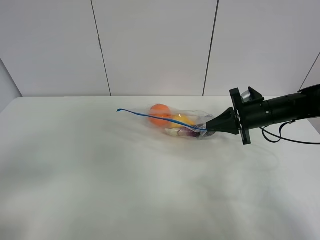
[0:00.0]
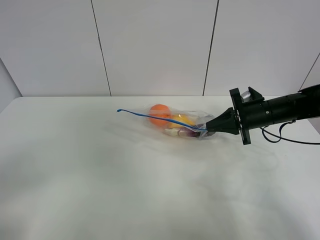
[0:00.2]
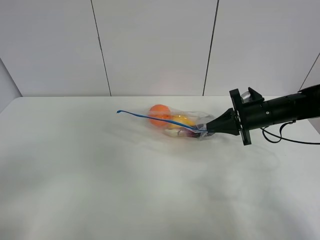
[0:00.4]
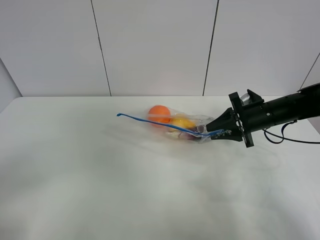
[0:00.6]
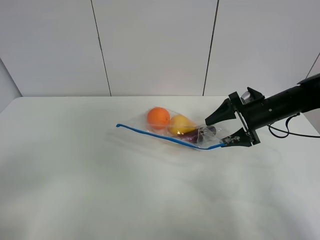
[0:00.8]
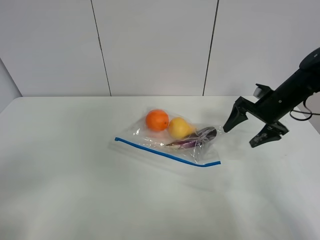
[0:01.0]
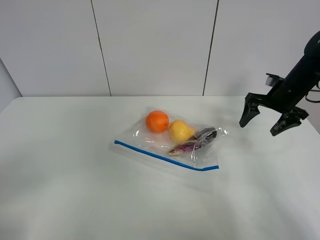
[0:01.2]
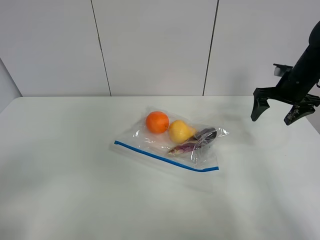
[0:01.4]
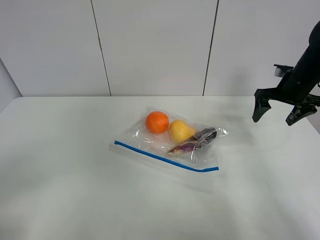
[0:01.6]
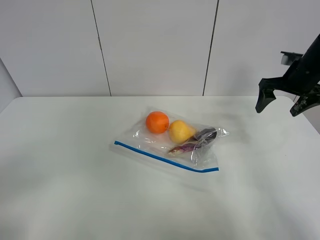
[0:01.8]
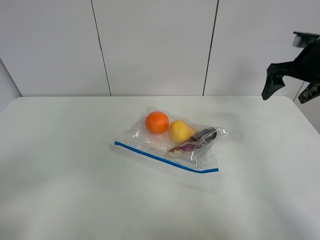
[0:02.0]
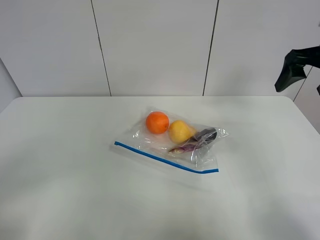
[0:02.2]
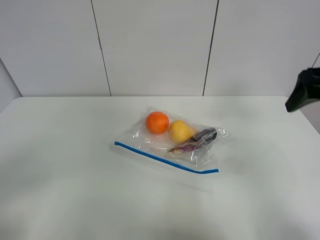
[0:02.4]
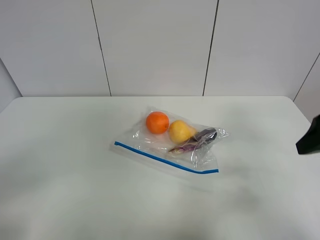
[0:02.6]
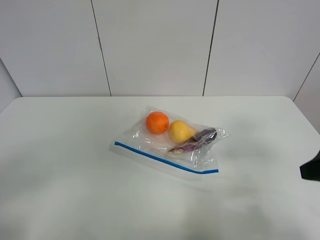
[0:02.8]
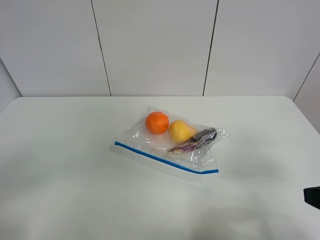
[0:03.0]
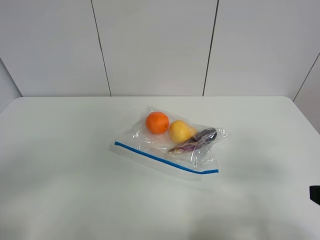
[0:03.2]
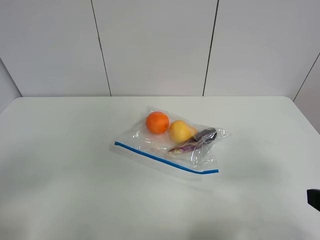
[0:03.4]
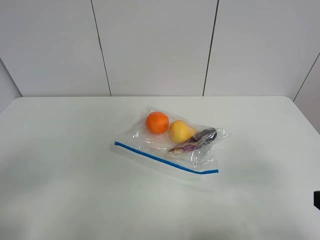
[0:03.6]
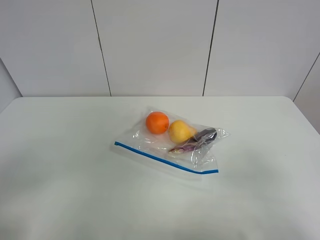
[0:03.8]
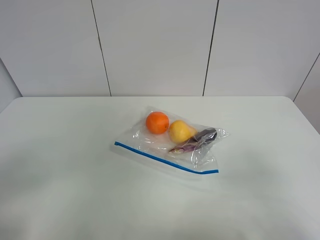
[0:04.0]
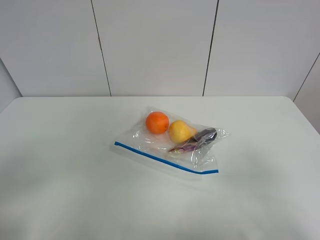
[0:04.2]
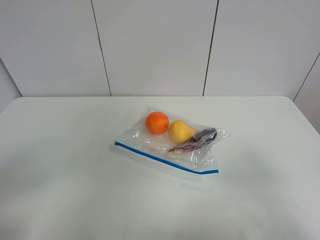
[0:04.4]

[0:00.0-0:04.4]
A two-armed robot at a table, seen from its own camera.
0.0 to 1.4 s: The right gripper heads to the right and upward, covering some 10 cm, and opens up.
1.4 to 3.0 s: The right gripper moves backward, roughly 30 cm.

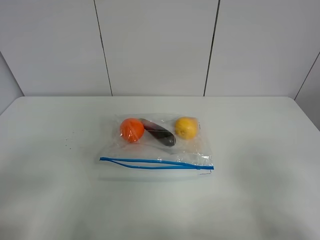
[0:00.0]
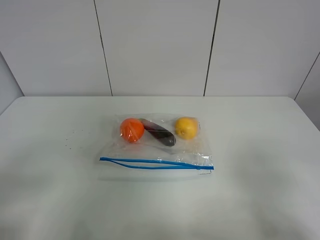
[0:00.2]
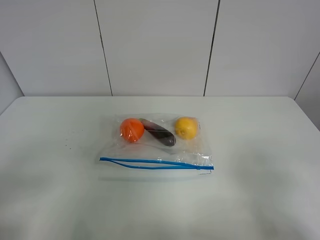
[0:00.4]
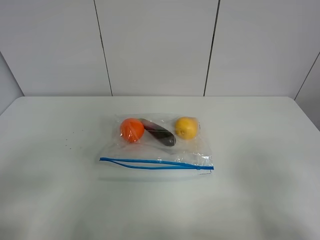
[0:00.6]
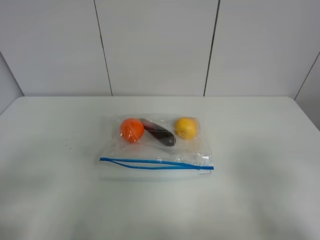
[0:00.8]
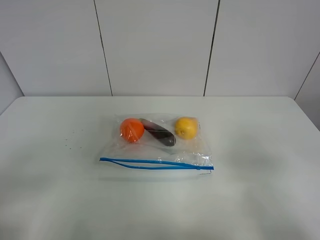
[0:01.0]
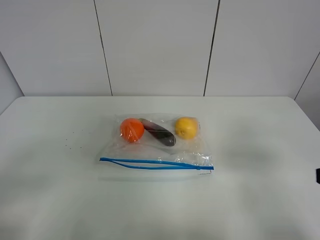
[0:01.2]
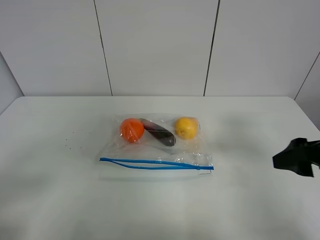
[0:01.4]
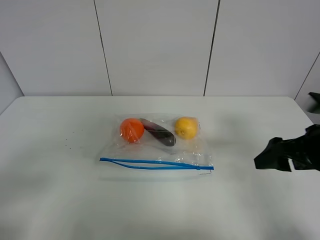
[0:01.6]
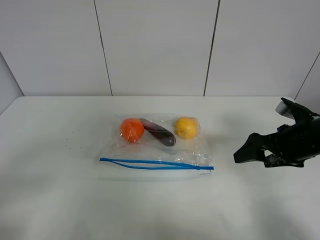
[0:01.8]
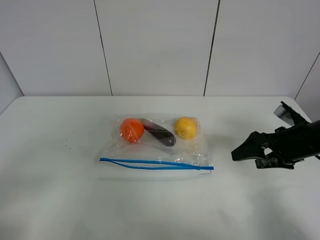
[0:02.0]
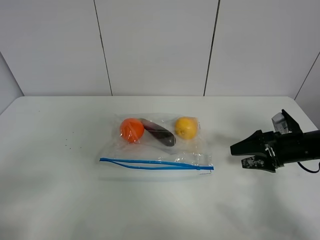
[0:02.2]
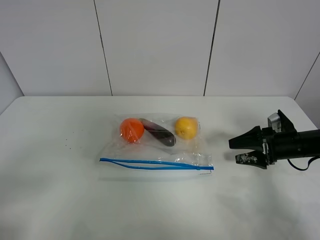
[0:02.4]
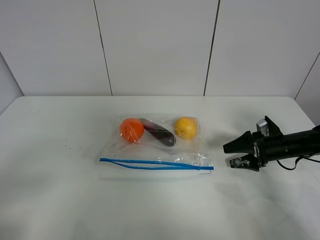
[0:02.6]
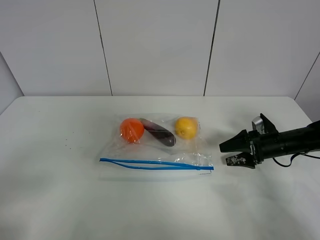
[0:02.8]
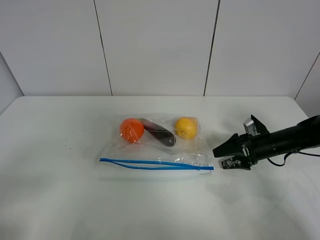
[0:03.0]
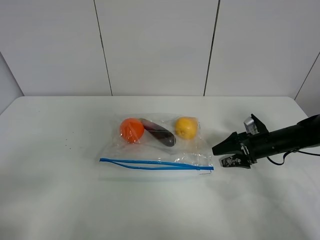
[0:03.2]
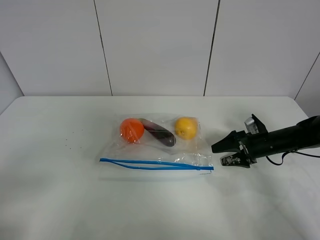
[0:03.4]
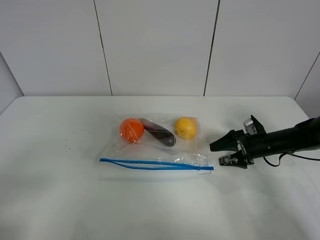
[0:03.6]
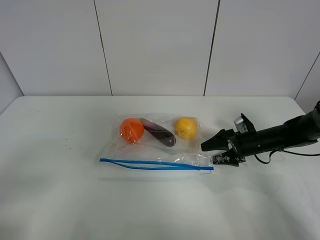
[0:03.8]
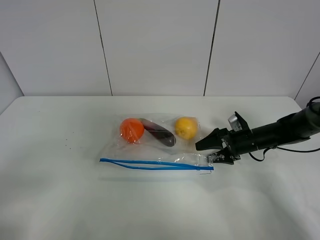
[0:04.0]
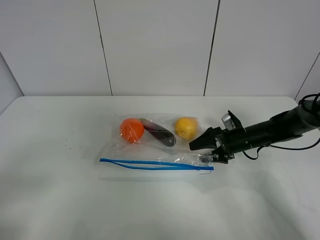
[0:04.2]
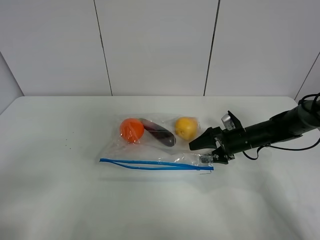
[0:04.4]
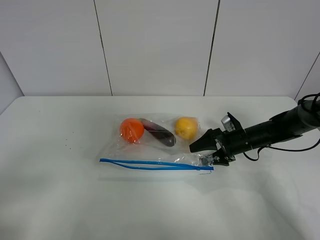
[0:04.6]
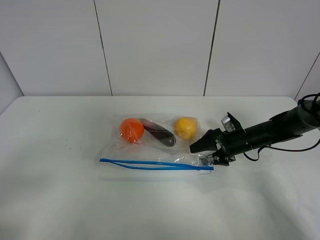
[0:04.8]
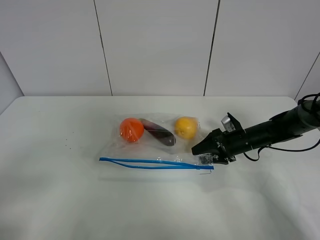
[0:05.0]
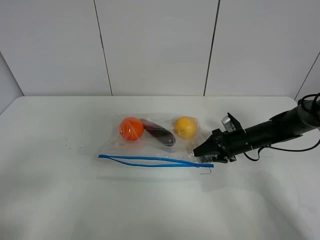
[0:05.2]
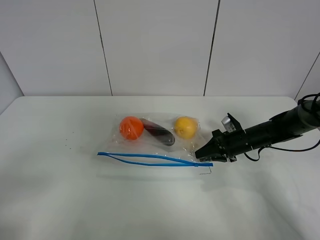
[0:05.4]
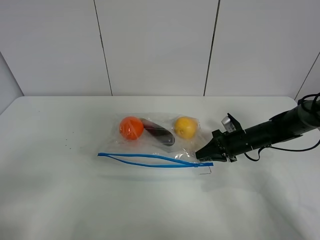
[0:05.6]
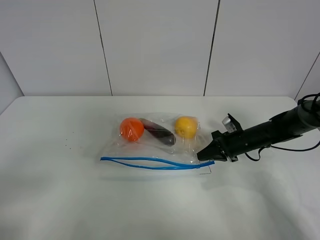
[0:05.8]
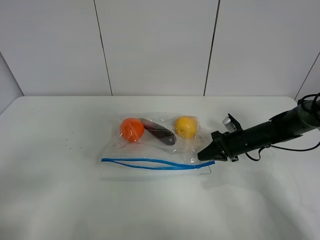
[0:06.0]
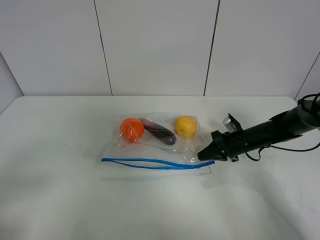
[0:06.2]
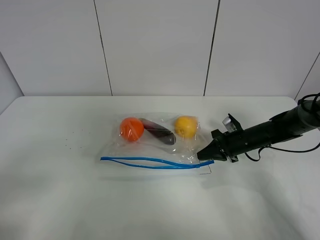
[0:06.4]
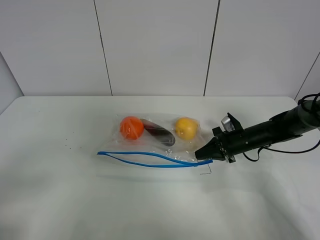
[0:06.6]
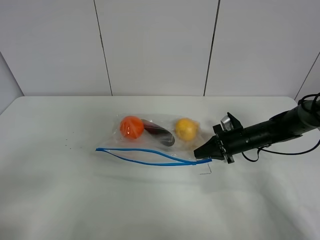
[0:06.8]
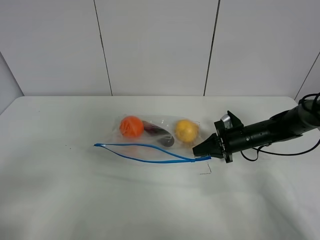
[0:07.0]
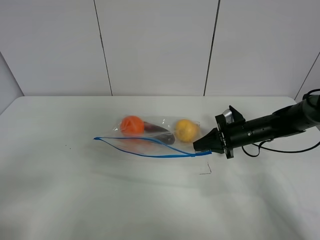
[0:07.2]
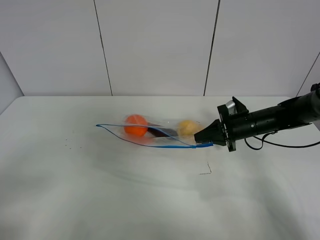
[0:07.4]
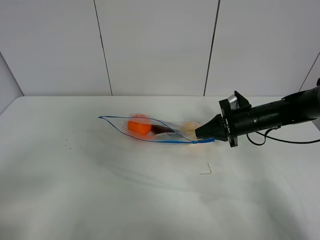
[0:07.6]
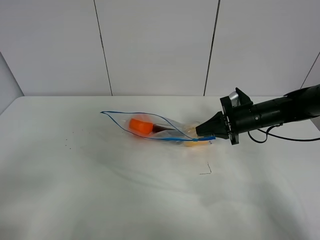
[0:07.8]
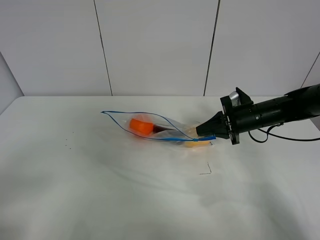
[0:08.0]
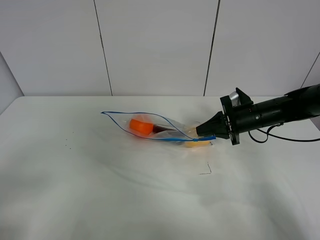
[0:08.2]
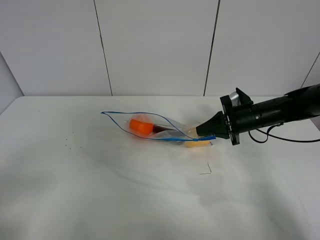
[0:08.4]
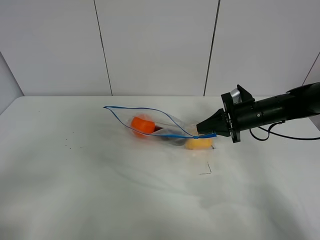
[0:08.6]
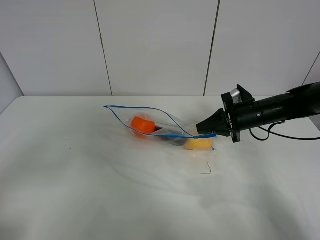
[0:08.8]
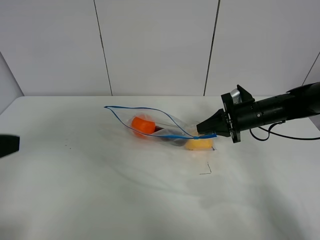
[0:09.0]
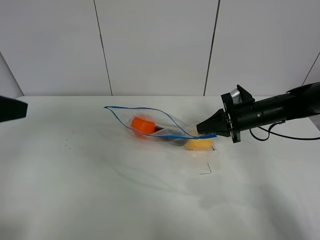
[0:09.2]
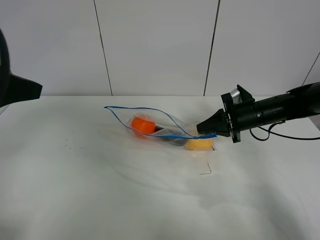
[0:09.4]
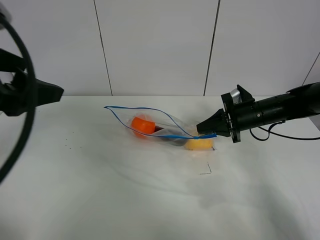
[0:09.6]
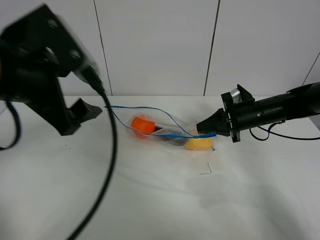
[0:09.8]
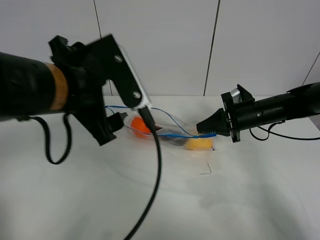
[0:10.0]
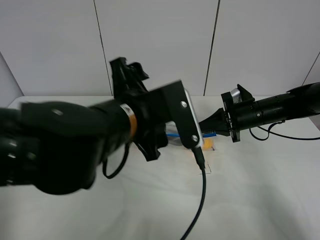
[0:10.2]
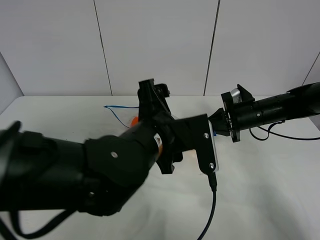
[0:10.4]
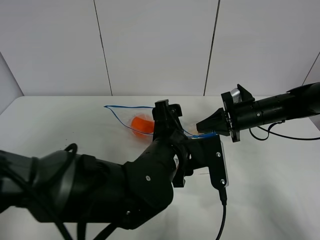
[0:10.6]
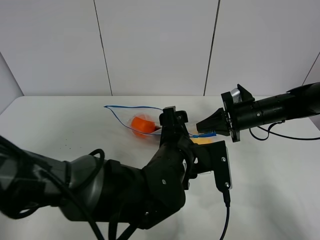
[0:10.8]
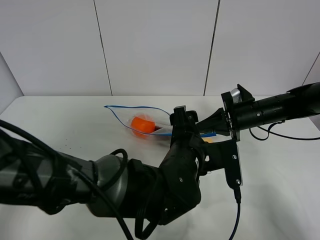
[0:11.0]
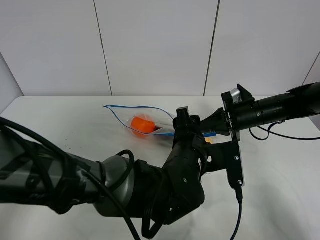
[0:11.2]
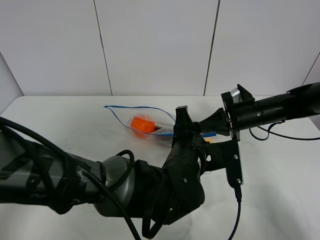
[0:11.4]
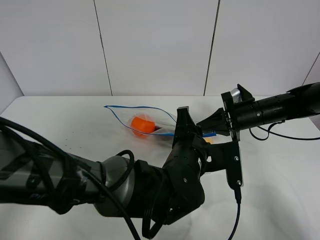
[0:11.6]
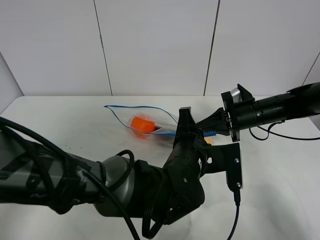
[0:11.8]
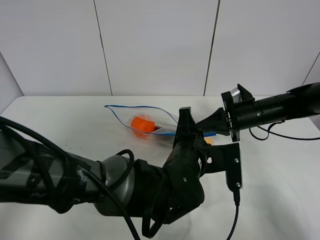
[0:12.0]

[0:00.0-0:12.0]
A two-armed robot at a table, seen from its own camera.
Step, 0.0 to 5.6 s: Grasp the fruit bag with right gripper.
Step, 5.8 to 8.4 s: Lift the fruit bag with your right gripper.
0.0 to 1.6 s: The right gripper goes about 20 cm forward.
1.6 to 3.0 s: The right gripper travels downward and forward by about 20 cm.
3.0 to 4.4 s: The right gripper moves to the left, some 5 cm.
4.4 to 6.0 s: The right gripper closes.
6.0 to 7.6 s: The right gripper heads upward, covering about 10 cm.
7.6 to 9.0 s: The left gripper shifts about 15 cm forward and upward.
9.0 to 10.4 s: The left gripper travels to the right and downward by some 30 cm.
10.4 to 12.0 s: The left gripper moves downward and to the right, some 10 cm, and closes up.

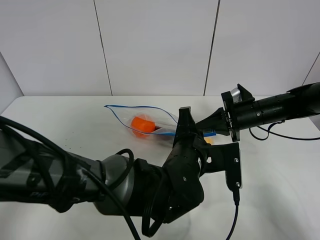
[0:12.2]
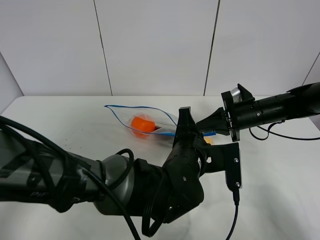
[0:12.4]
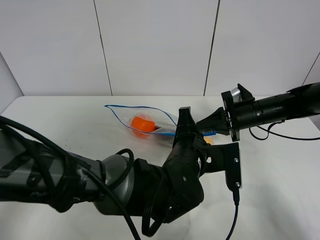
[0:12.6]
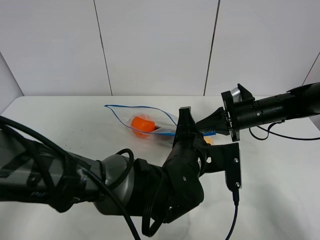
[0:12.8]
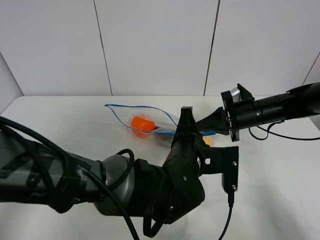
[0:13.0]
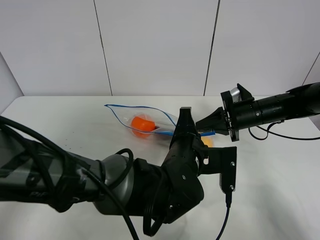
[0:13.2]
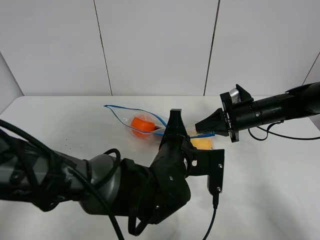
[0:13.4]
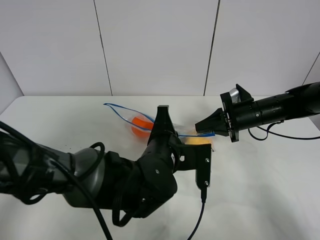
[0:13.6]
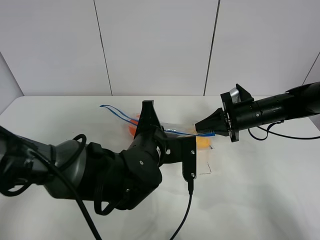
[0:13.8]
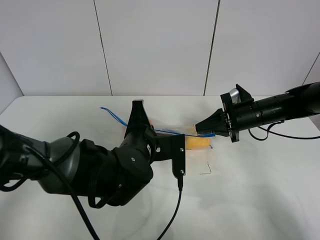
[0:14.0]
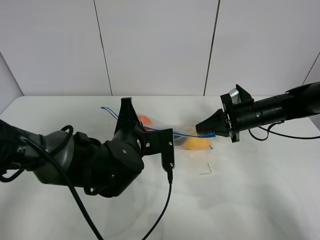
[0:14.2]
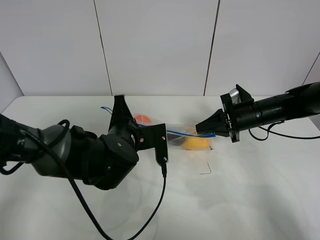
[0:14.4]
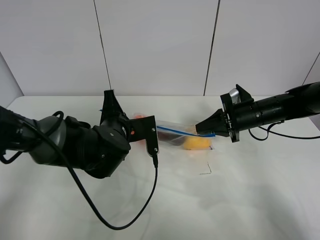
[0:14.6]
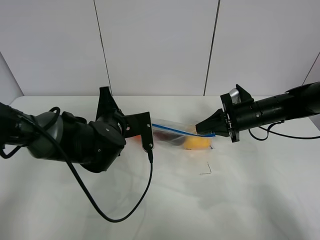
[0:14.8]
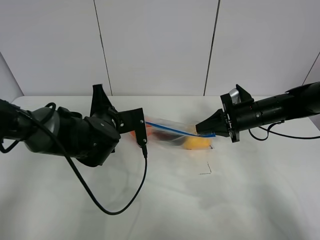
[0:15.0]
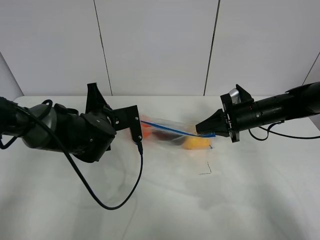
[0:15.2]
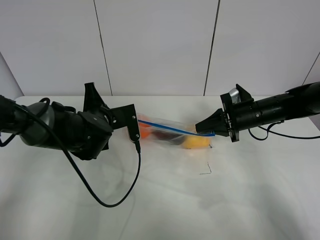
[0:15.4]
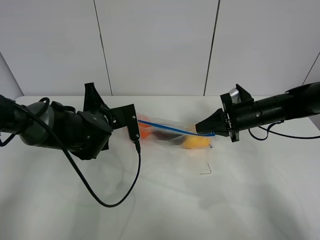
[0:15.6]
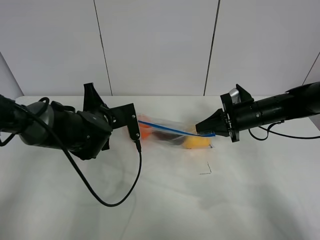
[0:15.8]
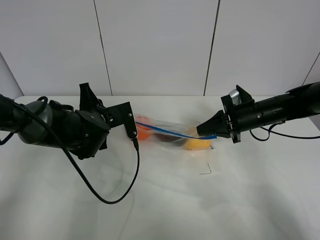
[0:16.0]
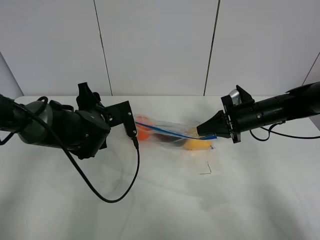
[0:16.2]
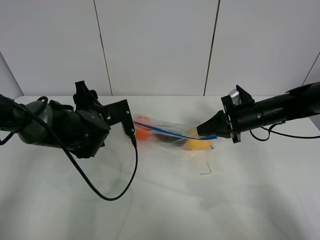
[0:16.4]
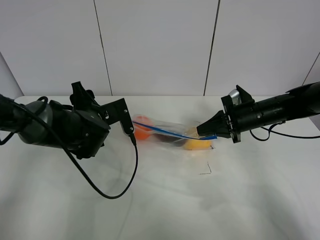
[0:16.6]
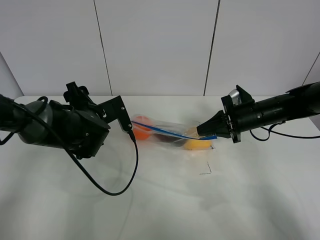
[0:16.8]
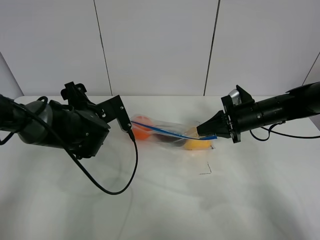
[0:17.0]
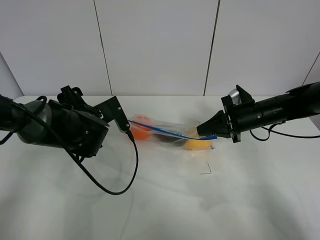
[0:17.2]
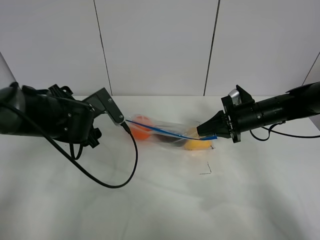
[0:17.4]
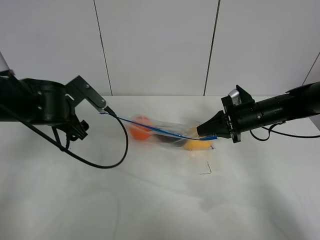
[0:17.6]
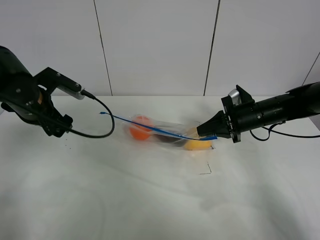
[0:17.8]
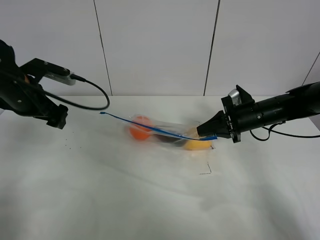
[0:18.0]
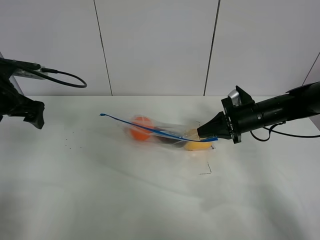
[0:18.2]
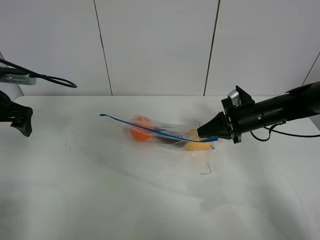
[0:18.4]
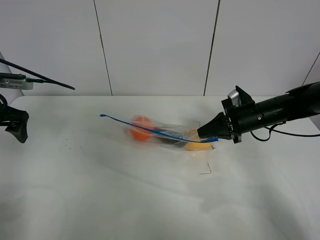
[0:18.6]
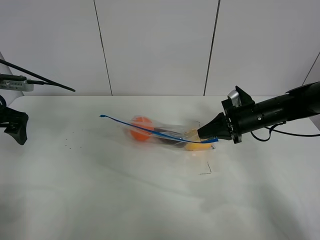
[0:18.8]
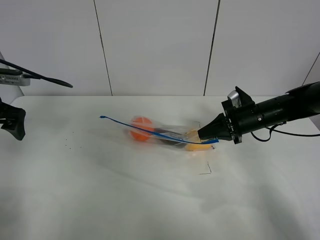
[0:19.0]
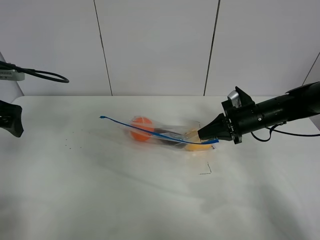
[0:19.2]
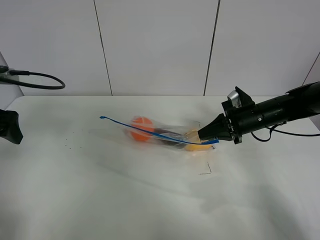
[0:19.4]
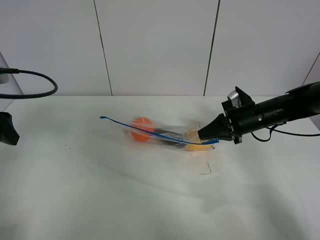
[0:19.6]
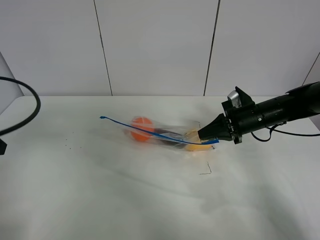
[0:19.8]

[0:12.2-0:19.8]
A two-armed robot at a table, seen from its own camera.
Step, 12.2 to 17.0 s: Pull the fruit bag with left gripper.
12.2 to 13.8 s: The left gripper heads to the left, covering approximately 10 cm.
13.8 to 15.2 s: The left gripper shifts approximately 15 cm to the left and forward.
15.2 to 16.8 s: The left gripper opens its fingers.
16.8 to 18.2 s: The left gripper shifts approximately 20 cm to the left and upward.
18.2 to 19.8 s: The left gripper moves backward, some 15 cm.
